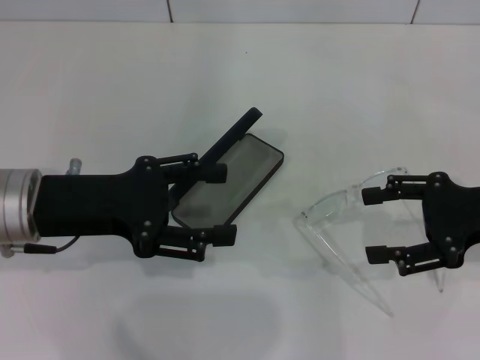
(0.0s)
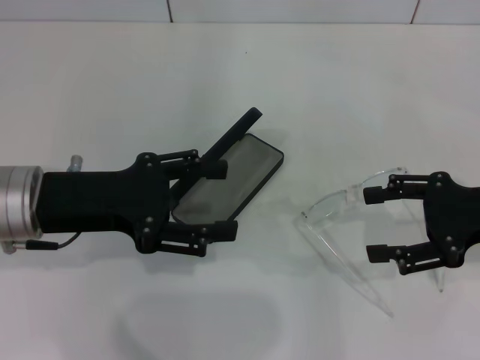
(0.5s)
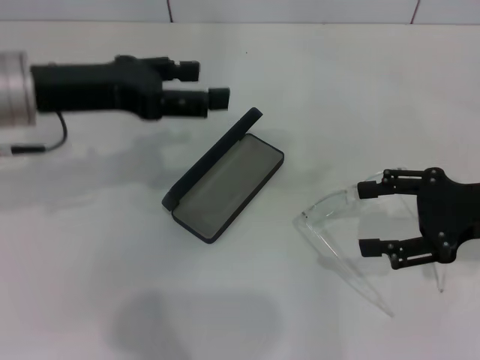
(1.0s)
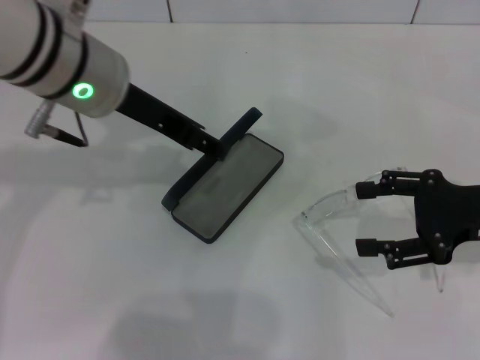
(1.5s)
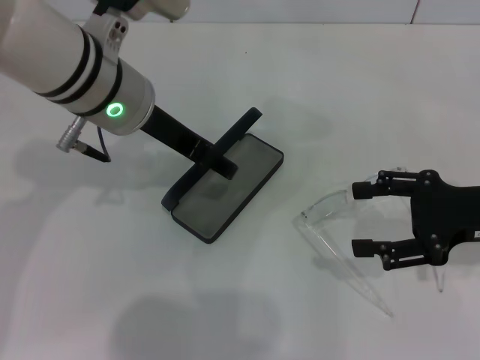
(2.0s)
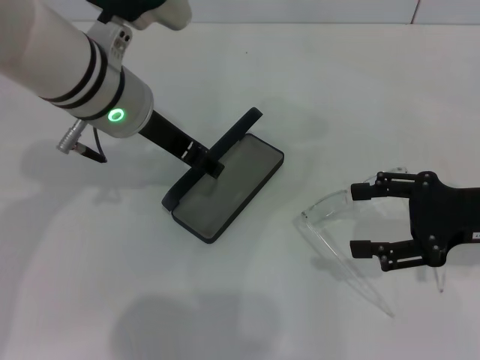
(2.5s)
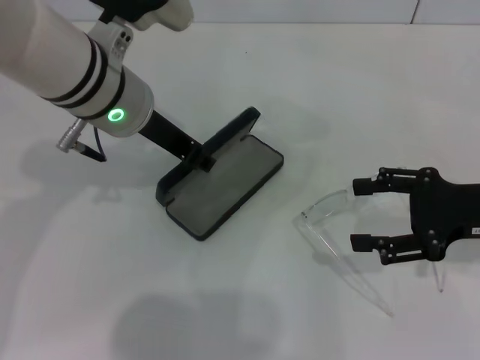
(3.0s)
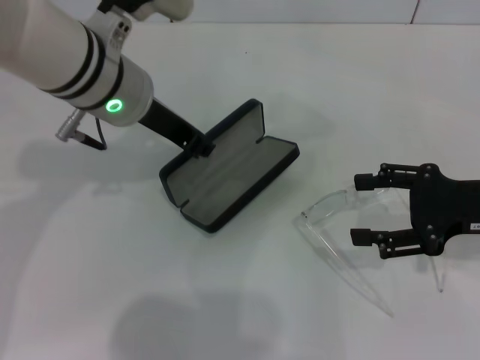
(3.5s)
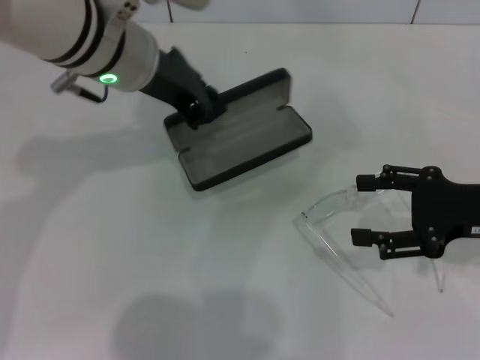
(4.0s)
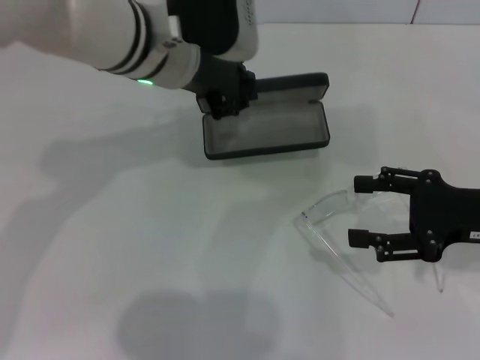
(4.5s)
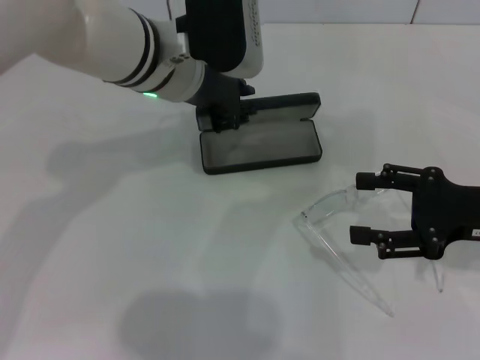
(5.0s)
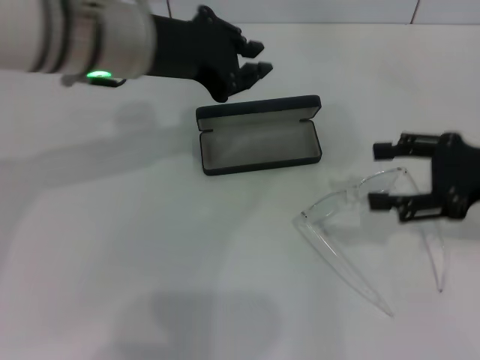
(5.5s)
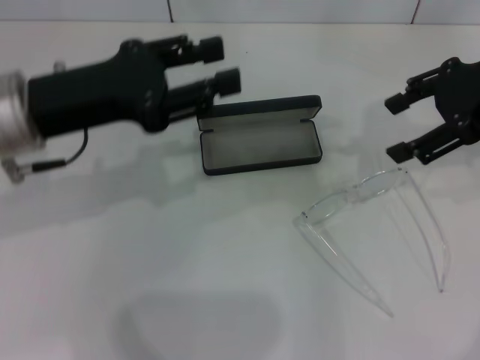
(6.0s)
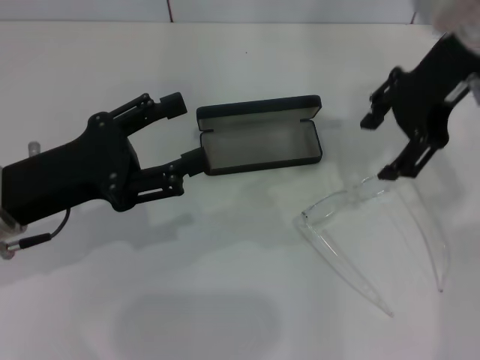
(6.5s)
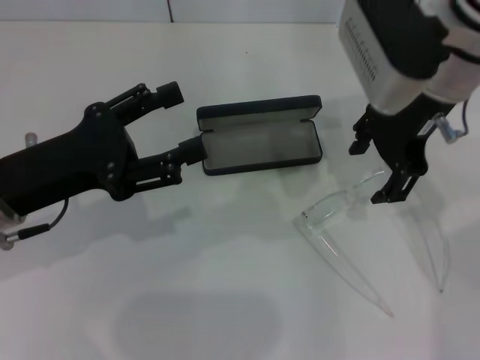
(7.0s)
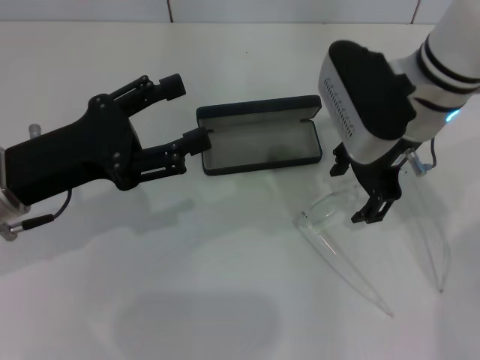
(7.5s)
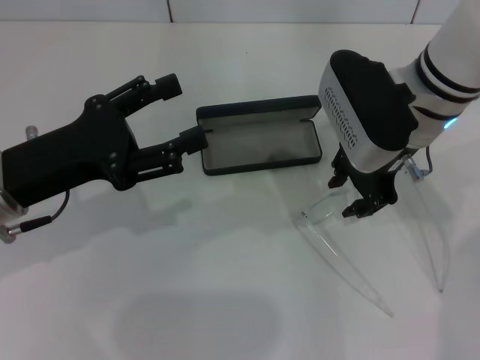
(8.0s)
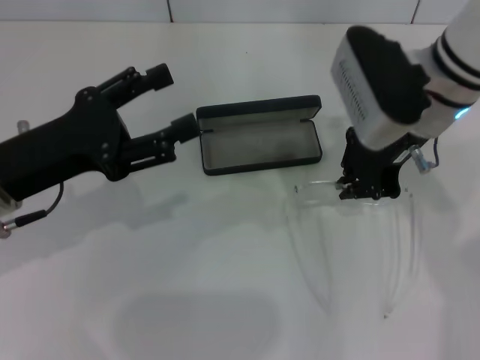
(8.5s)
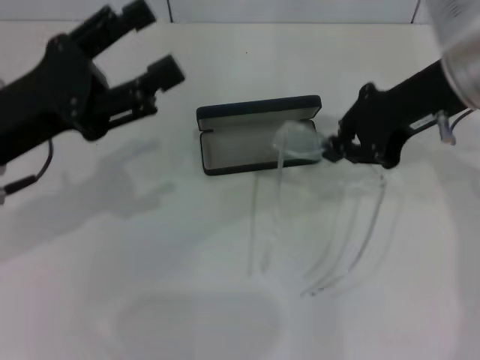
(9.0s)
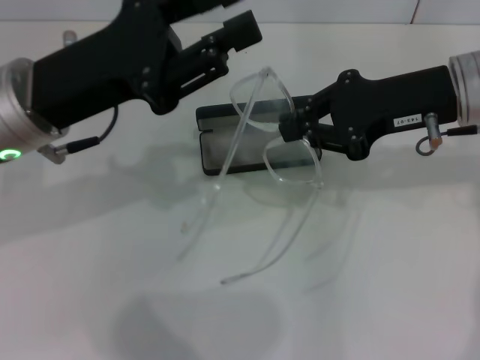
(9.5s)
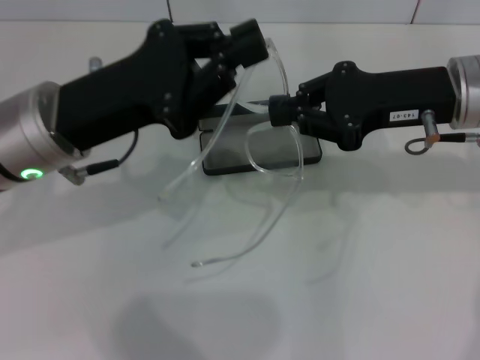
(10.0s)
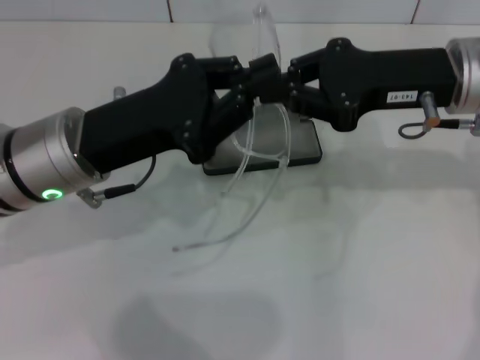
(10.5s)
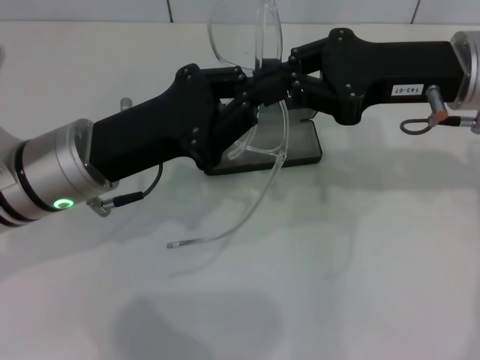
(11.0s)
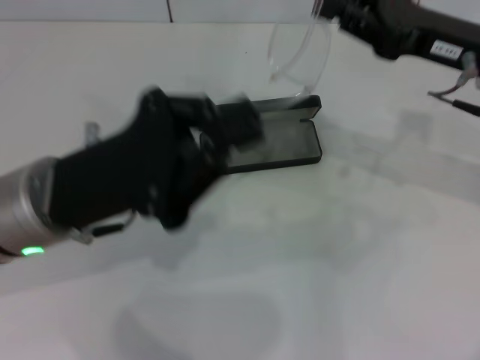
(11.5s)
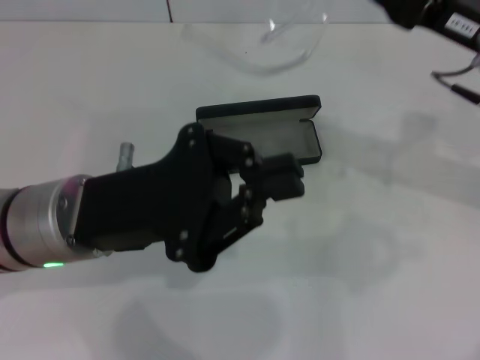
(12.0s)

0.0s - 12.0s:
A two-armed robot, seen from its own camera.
Step, 0.0s - 3.0s: Grab the glasses case with your left hand.
Step, 3.5s - 5.0s: Place the glasses case in the center of the table with your left hand.
Step, 5.5s - 8.0s: Grab the eyeglass frame with your right hand.
0.0s - 2.0s: The left gripper moves to the right, forward and upward, some 15 cm.
2.0s - 4.0s: The left gripper closes its fingers.
4.0s - 6.0s: The left gripper shifts roughly 10 cm to the left and backward; the right gripper travels upward and forward by roughly 15 cm.
6.0s - 8.0s: The left gripper shifts approximately 5 cm downward, and opens up. Meanwhile the right gripper heads to the left and downward, covering roughly 15 cm.
8.0s - 10.0s: Both grippers travel together to the right, approximately 5 cm. The left gripper closes up. The right gripper closes.
10.0s - 12.0s: The left gripper changes place by roughly 5 cm.

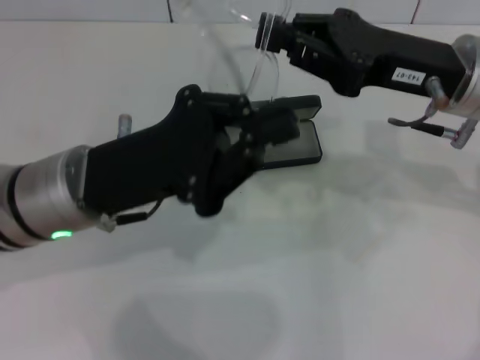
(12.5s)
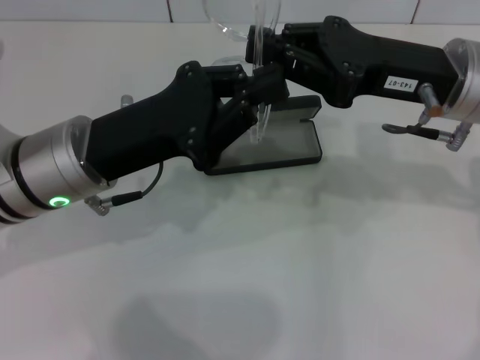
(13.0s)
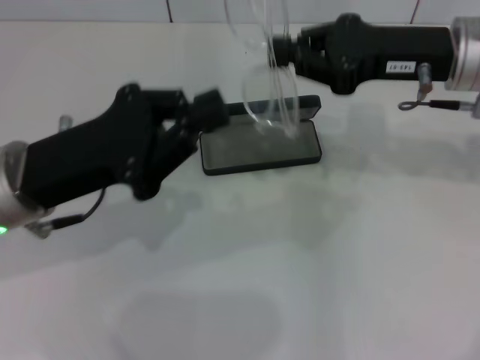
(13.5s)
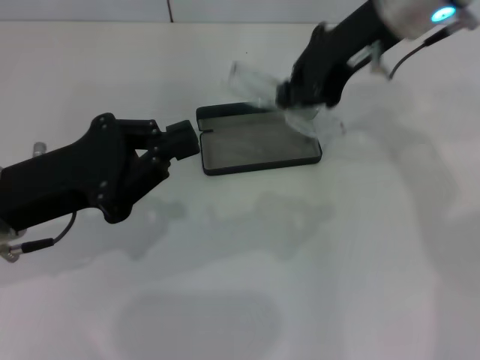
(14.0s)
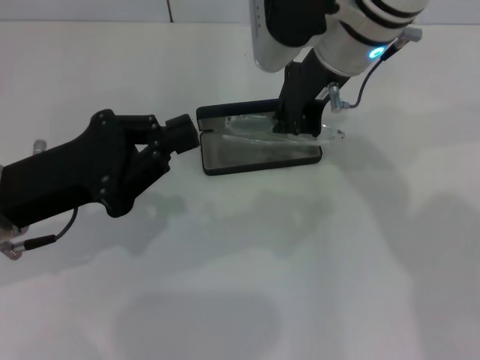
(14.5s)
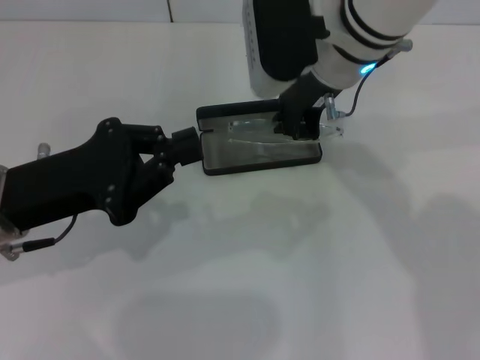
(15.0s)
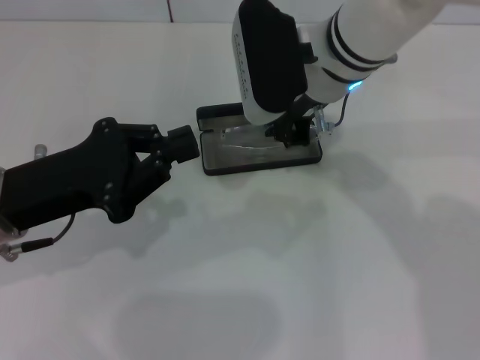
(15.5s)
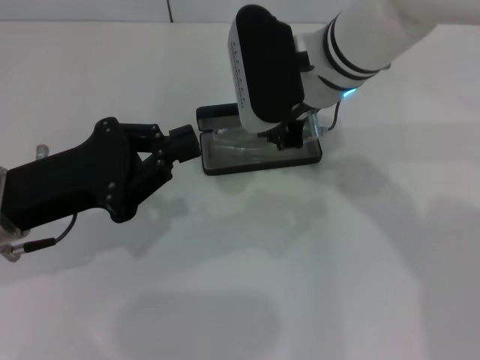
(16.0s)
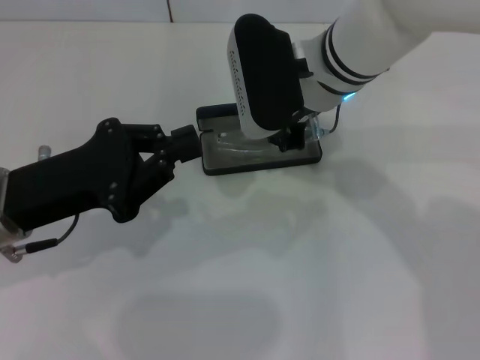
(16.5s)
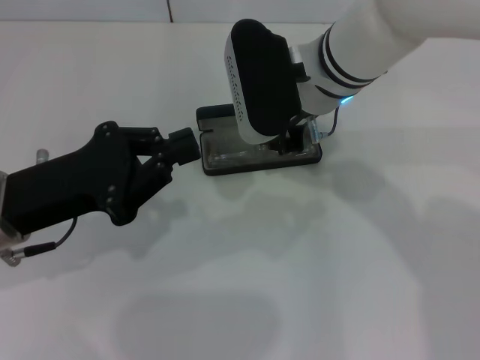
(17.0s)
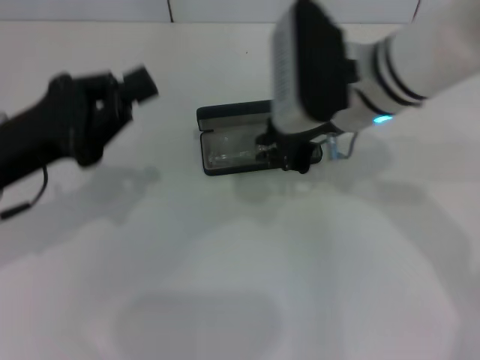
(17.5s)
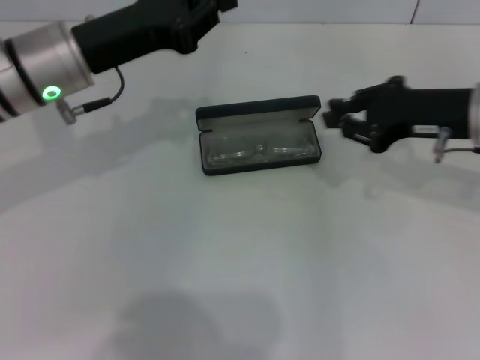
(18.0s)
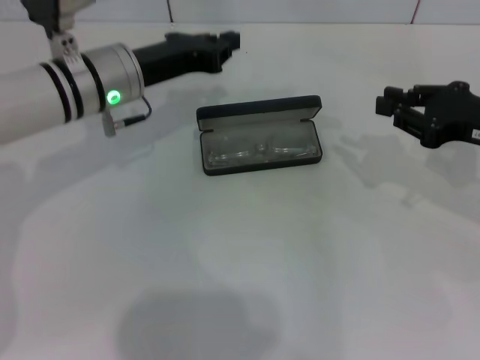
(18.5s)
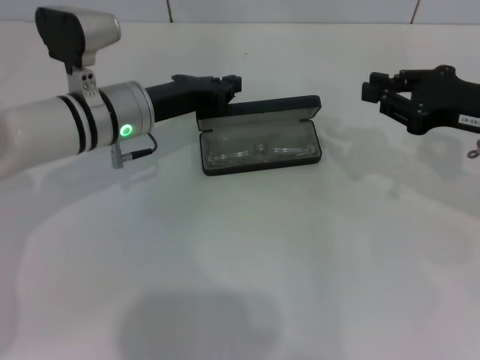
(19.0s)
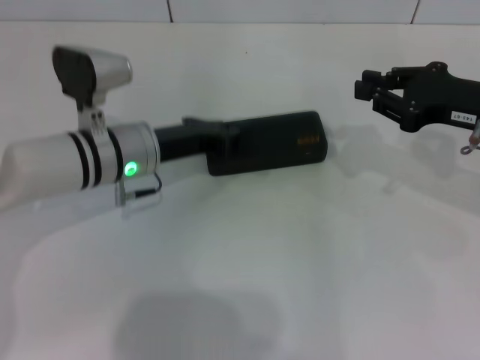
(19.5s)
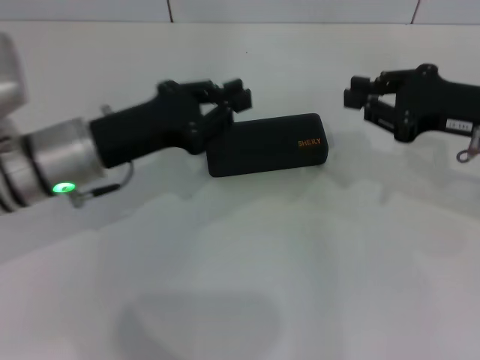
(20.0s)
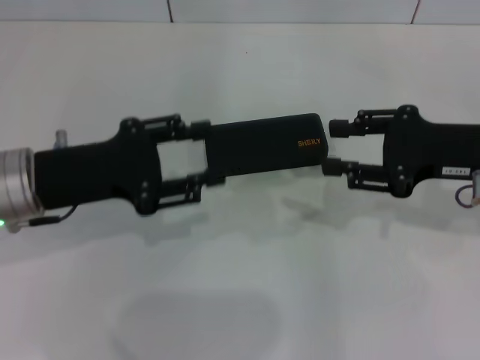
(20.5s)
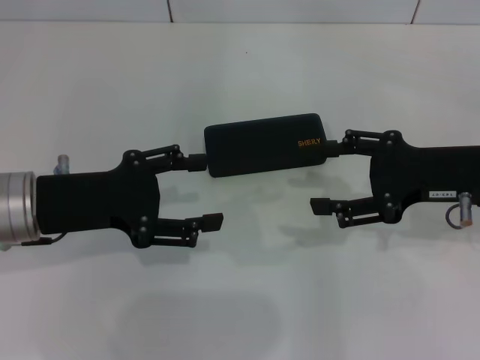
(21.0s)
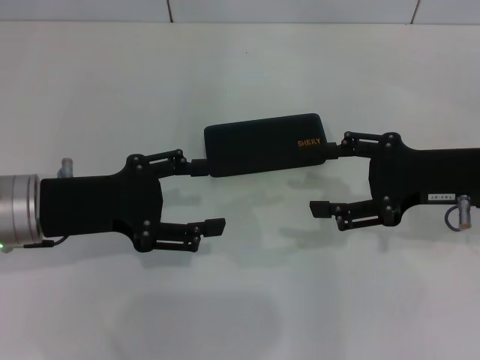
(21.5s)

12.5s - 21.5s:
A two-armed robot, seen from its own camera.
Step, 13.5s - 16.5s: Put the glasses into the case with your right hand.
Step, 17.0s - 19.5s: Close the glasses case with your left hand.
12.5s - 14.5s: The right gripper is displaced to the left and forward by roughly 15 cm; the left gripper shifts some 5 cm to the left.
14.5s - 17.0s: The right gripper changes place by approximately 5 cm.
17.0s - 19.5s: The right gripper is displaced to the right by roughly 20 cm; the left gripper travels forward, to the right and downward by roughly 15 cm.
19.5s - 21.5s: The right gripper opens up, while the left gripper heads backward, to the left and upward, covering roughly 15 cm, and opens its fingers.
